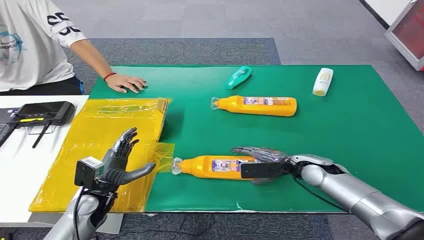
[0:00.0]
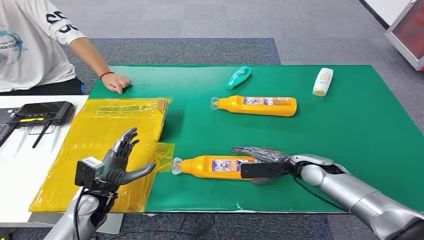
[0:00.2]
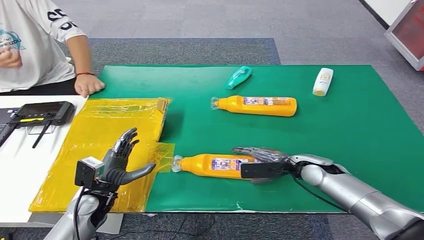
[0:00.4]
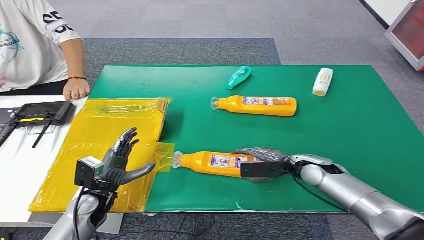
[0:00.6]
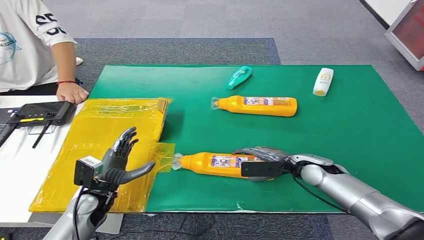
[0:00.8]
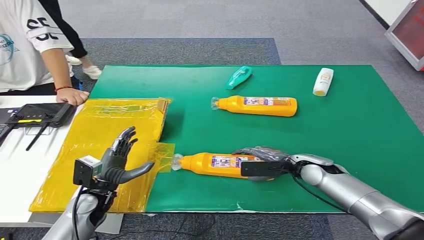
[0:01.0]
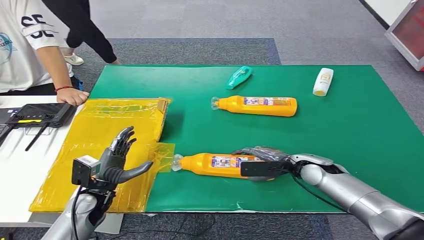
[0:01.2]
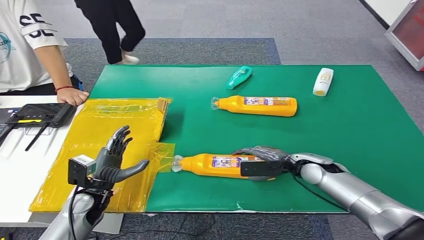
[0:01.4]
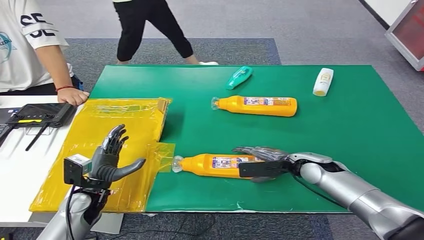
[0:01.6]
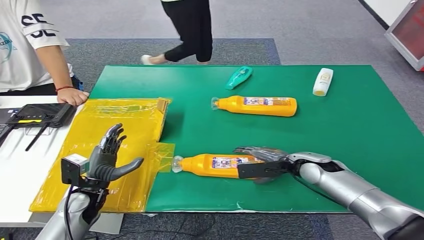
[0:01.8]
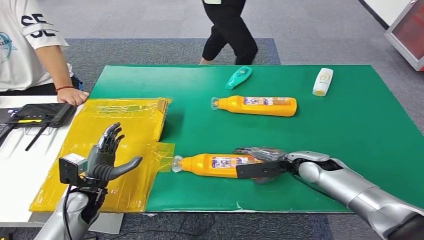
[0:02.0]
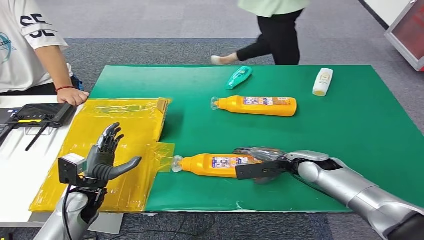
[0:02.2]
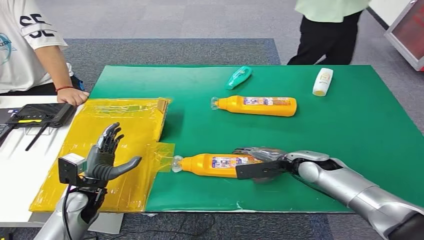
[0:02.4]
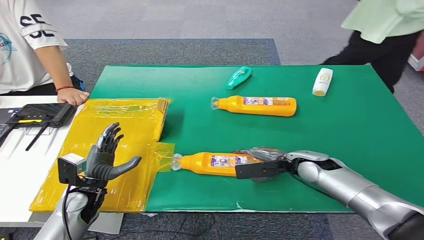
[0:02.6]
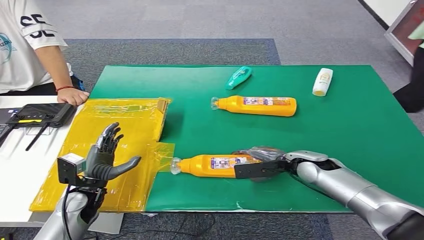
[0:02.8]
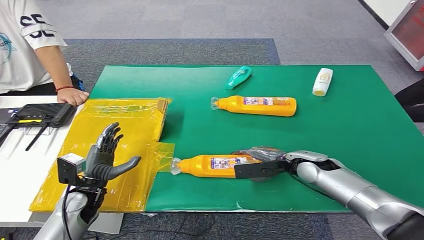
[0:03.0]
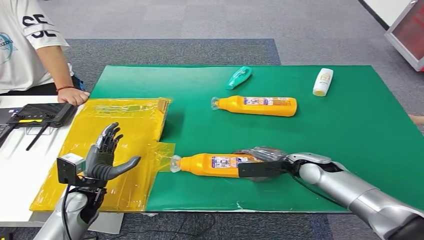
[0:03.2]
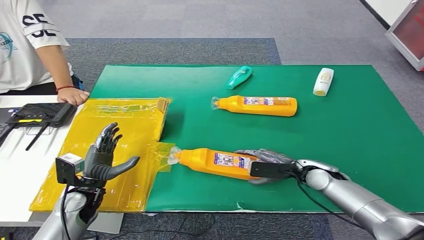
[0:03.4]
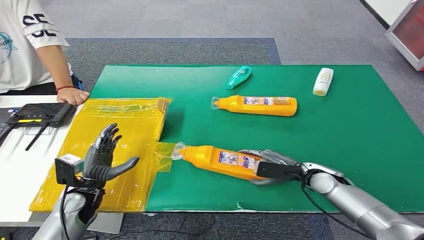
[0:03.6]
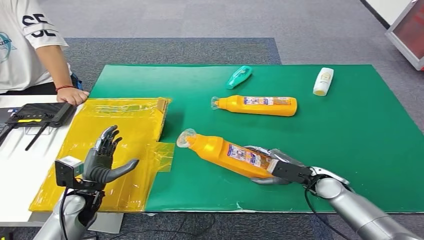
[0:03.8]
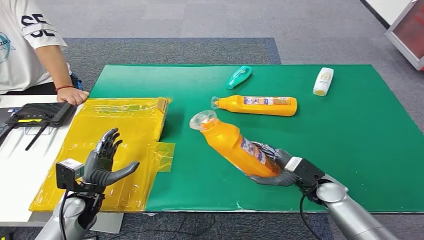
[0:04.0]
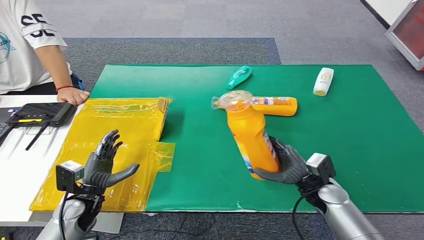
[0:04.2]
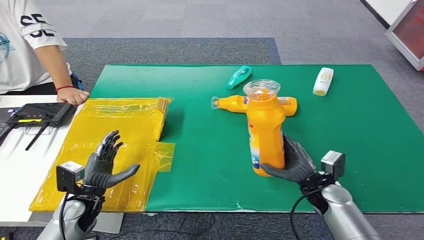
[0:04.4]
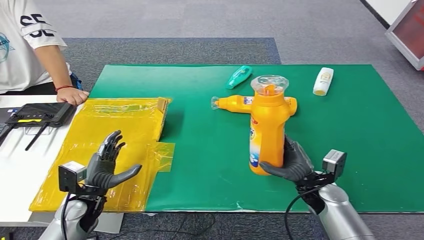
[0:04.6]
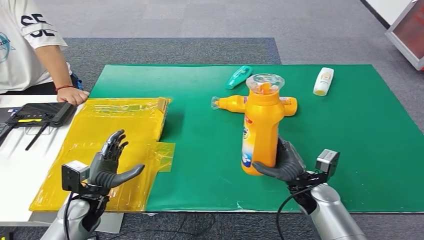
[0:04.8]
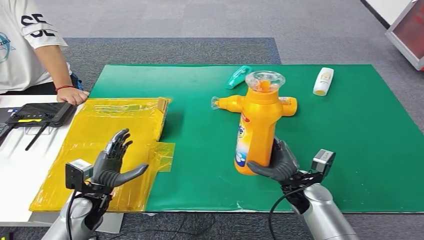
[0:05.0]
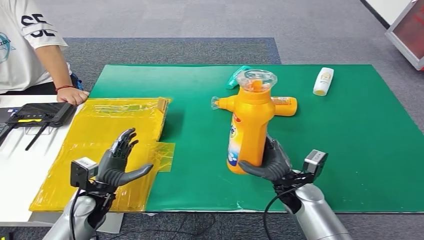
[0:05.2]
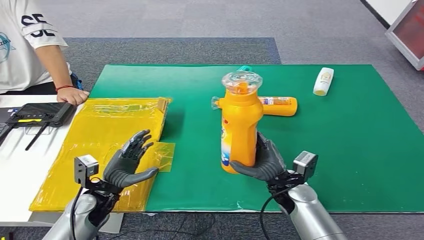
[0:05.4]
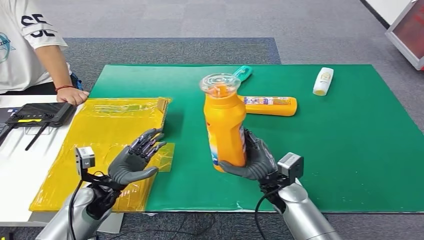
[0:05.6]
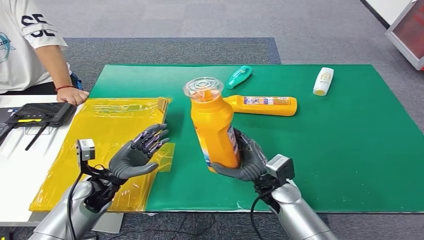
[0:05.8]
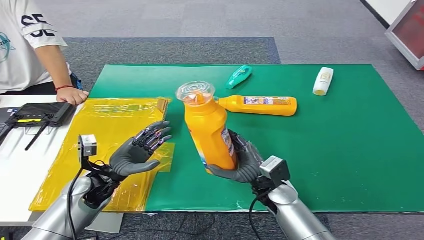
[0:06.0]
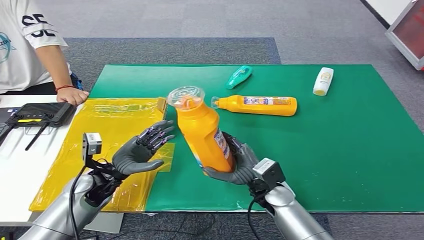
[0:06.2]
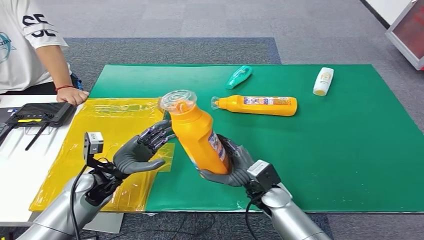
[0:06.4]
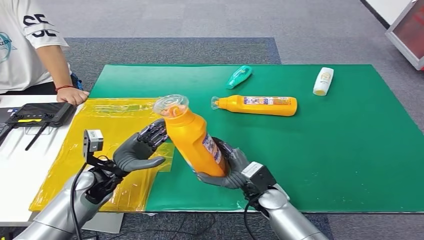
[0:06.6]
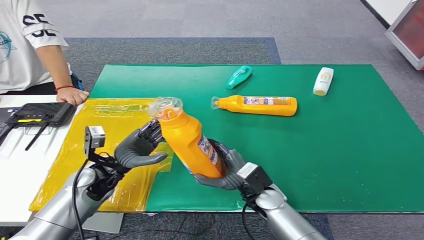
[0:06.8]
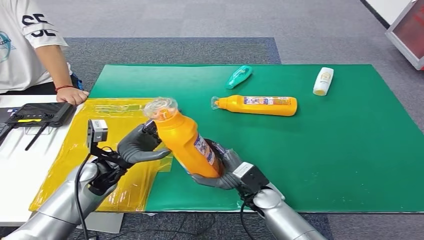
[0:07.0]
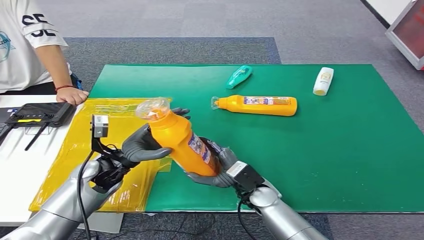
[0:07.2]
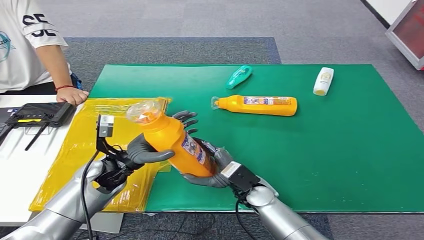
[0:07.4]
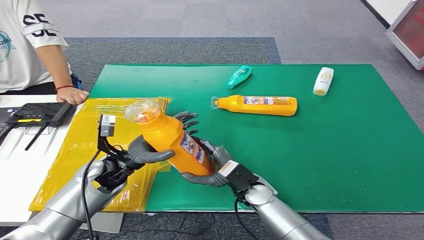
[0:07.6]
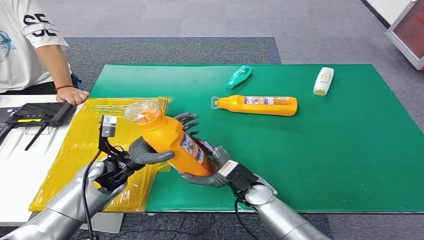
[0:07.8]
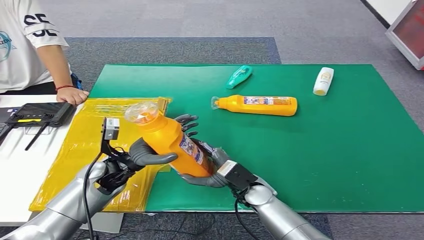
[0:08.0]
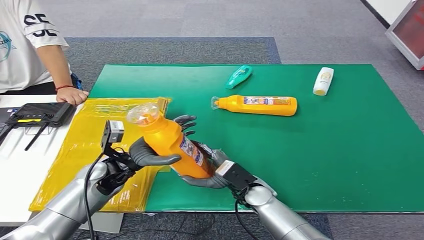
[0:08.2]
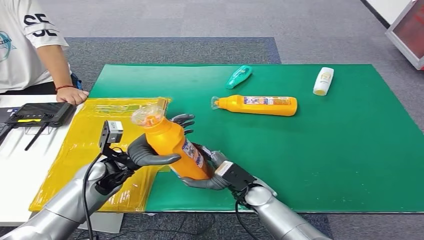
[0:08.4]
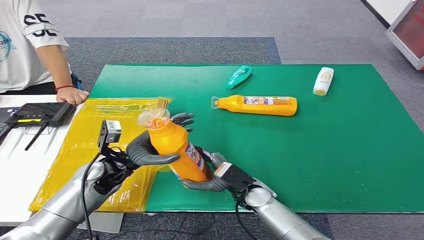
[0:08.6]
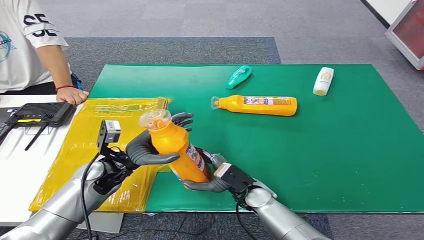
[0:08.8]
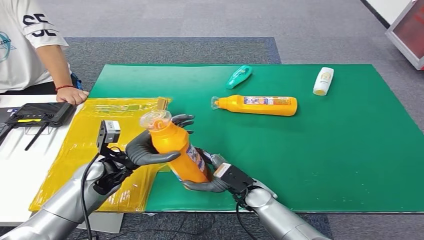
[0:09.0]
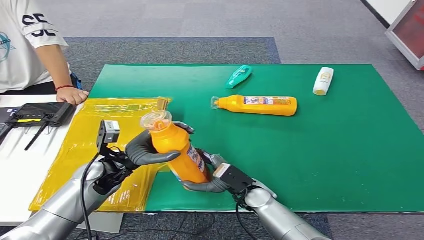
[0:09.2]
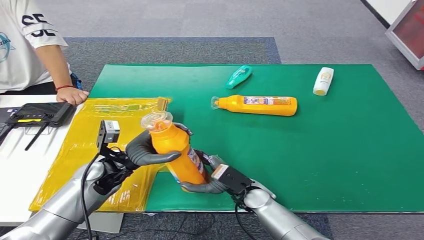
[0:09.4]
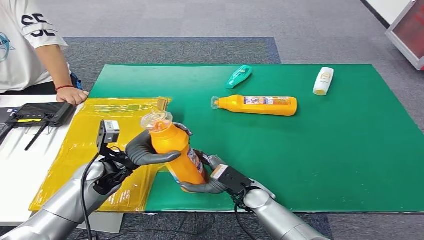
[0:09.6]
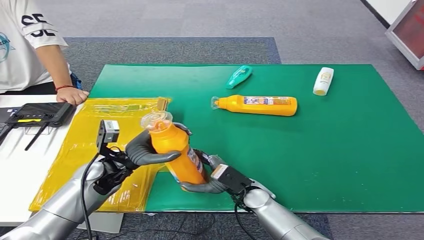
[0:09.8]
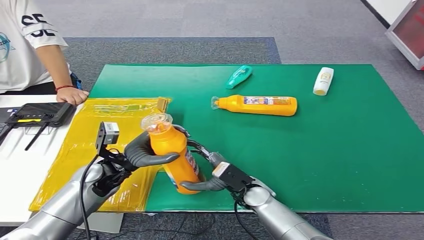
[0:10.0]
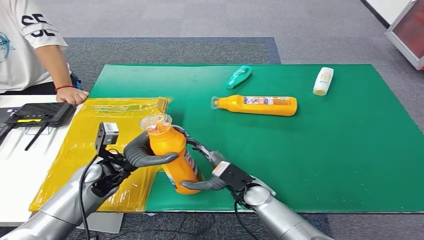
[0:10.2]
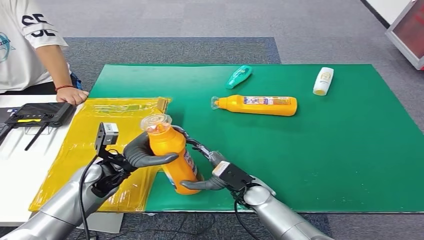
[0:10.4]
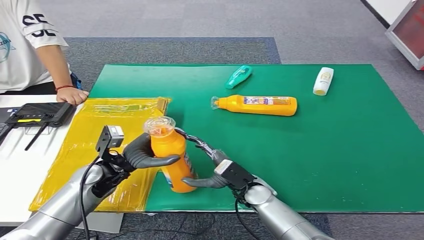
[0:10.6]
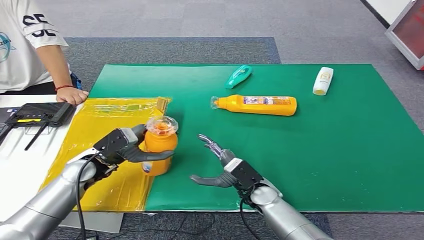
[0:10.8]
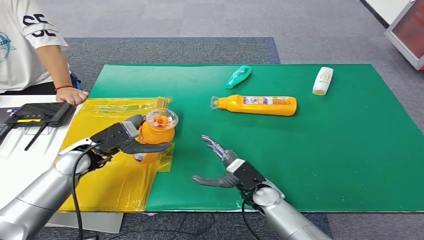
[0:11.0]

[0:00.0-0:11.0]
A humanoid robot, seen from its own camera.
Step, 0:00.0 to 0:04.4: Pick up the bottle from the table.
0:01.6 to 0:03.2: The hands make only small movements.
0:03.2 to 0:04.8: The right hand travels backward by roughly 5 cm.
0:04.8 to 0:06.2: The right hand heads to the left, covering roughly 10 cm. The left hand moves upward, approximately 5 cm.
0:06.2 to 0:07.8: The left hand moves roughly 5 cm.
0:07.8 to 0:09.4: There are only small adjustments of the hands.
0:09.4 to 0:11.0: The left hand moves approximately 5 cm.

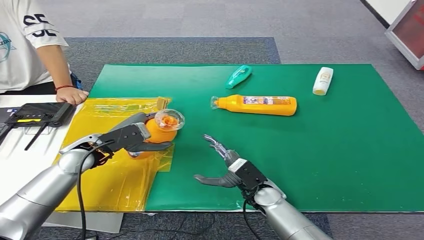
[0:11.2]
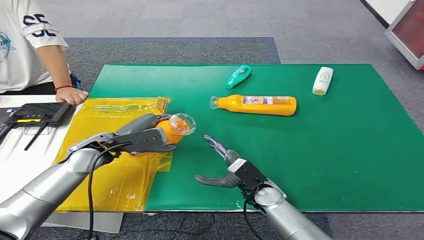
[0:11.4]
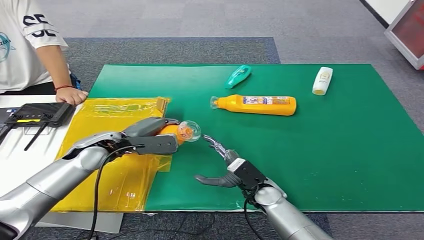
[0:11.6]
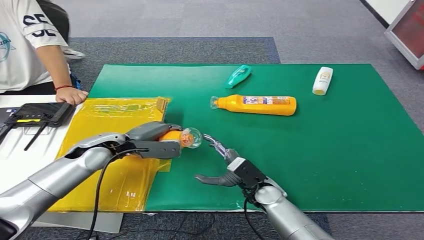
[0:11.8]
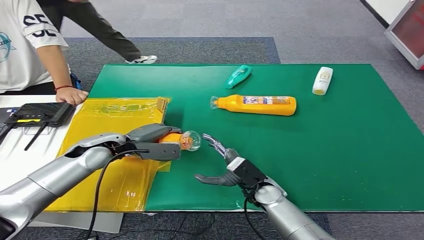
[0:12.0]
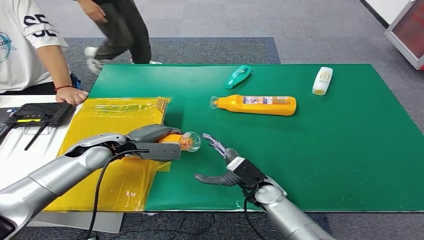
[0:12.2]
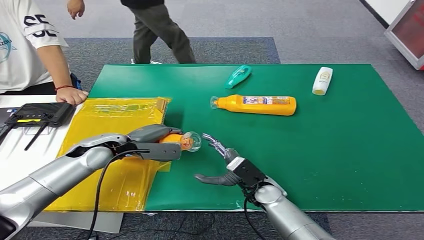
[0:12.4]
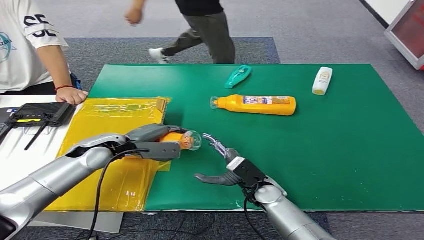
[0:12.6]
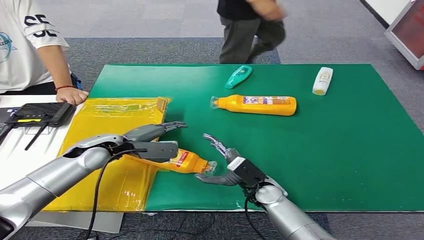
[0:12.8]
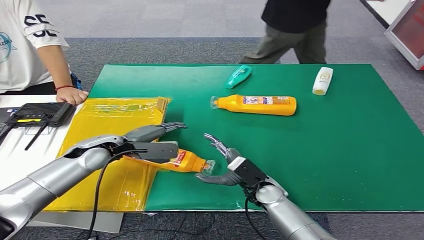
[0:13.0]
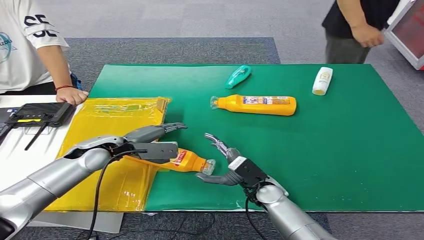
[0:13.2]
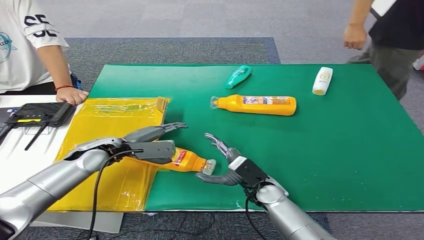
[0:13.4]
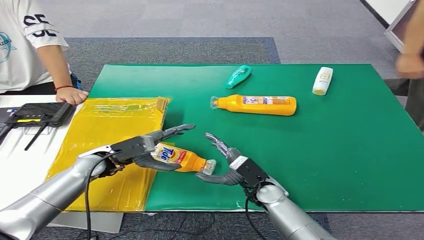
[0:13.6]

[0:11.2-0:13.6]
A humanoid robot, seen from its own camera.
Step, 0:11.2 to 0:13.6: Turn the bottle to the front side.

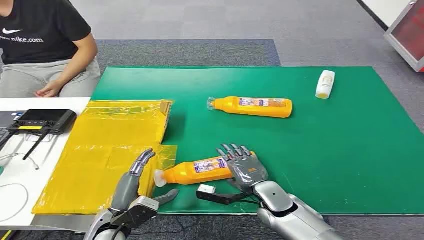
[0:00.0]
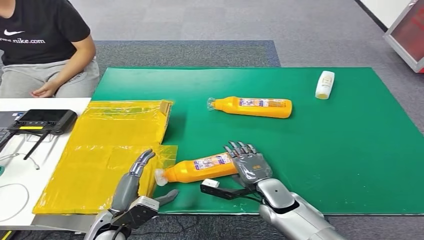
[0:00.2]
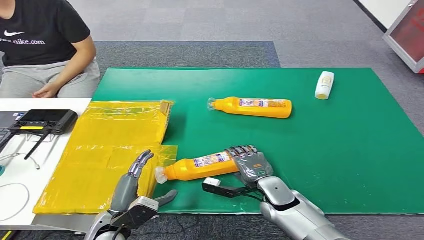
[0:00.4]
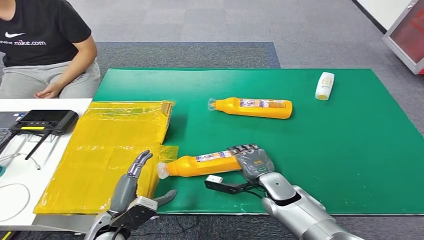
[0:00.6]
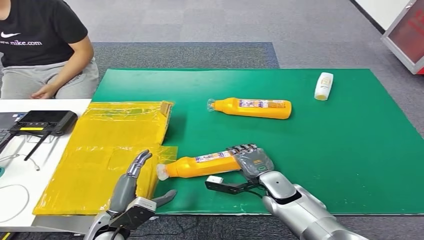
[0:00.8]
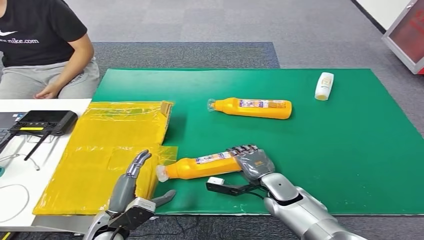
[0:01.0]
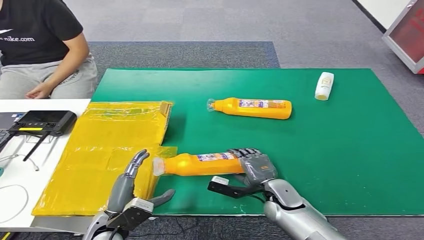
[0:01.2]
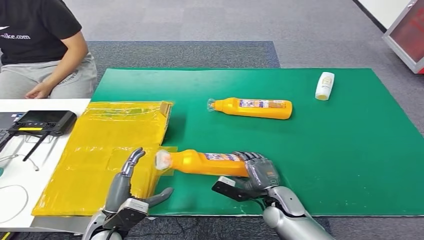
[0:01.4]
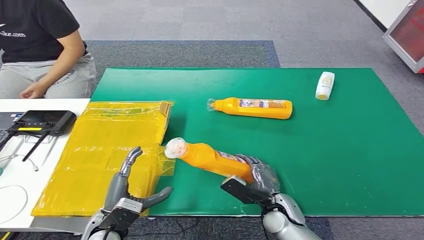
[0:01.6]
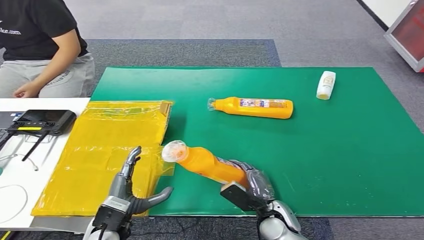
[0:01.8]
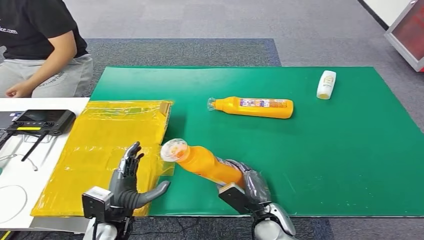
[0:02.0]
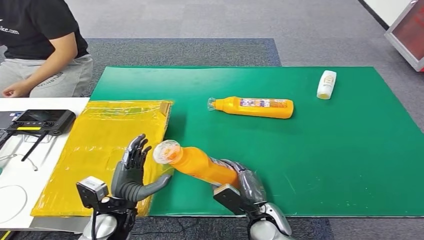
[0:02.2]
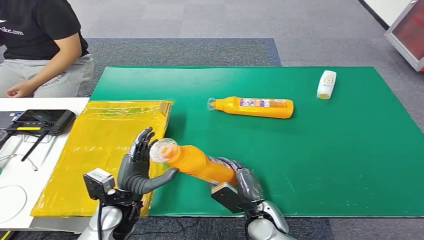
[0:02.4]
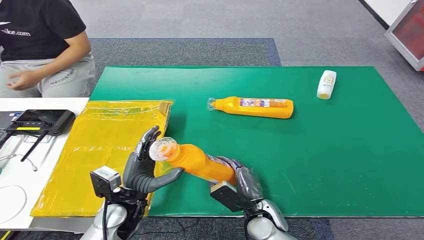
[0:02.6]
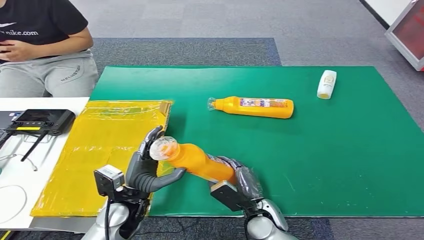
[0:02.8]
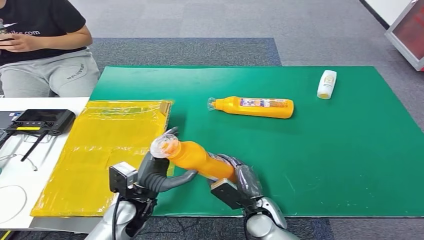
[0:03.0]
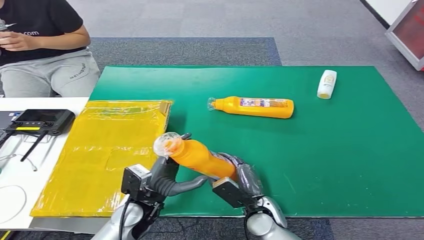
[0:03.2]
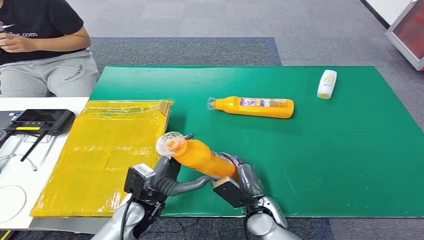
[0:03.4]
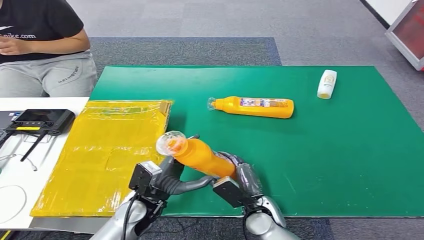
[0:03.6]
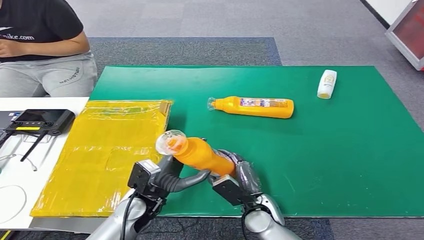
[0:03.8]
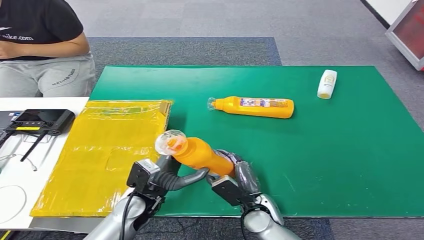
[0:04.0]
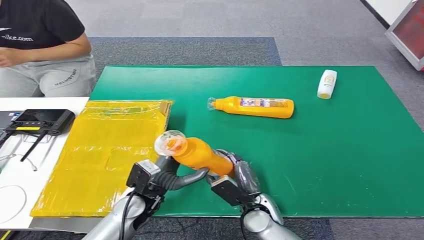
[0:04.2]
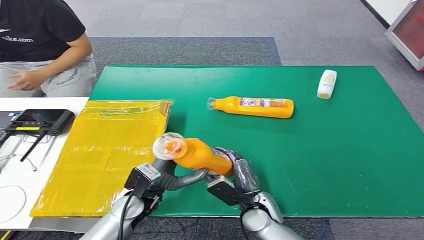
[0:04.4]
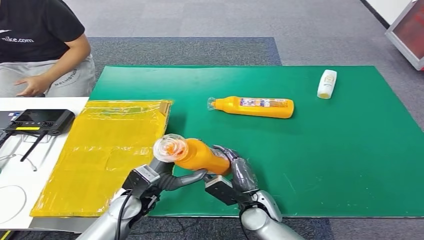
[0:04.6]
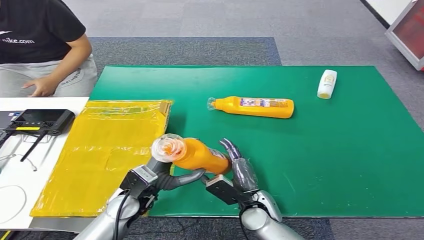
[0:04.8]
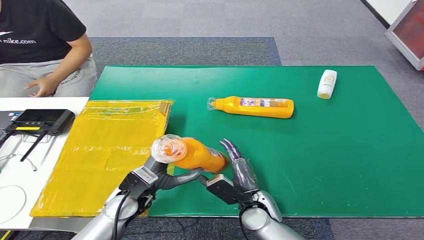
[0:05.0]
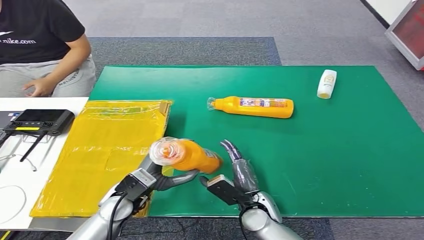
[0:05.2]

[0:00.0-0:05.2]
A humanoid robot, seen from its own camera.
Step, 0:00.0 to 0:02.2: Pick up the bottle from the table.
0:01.8 to 0:03.4: The left hand travels to the right and forward by approximately 10 cm.
0:03.4 to 0:05.2: The hands move only a little.
